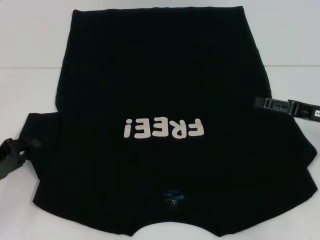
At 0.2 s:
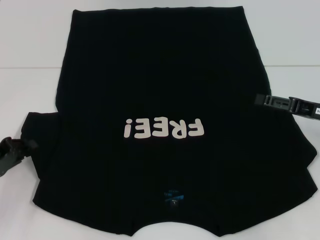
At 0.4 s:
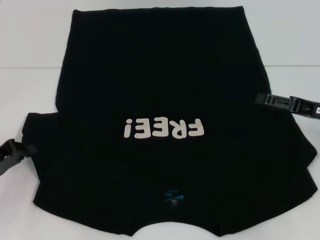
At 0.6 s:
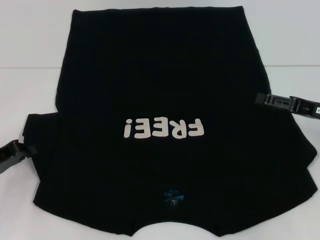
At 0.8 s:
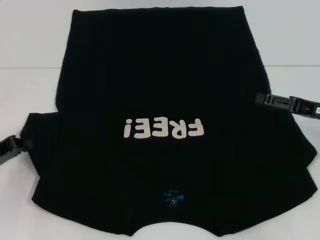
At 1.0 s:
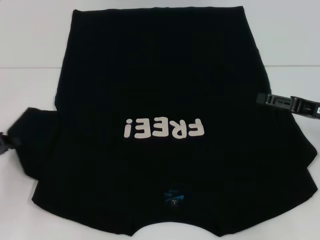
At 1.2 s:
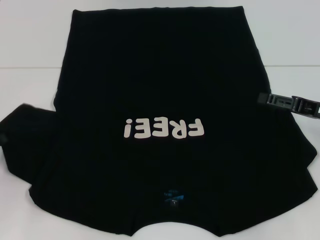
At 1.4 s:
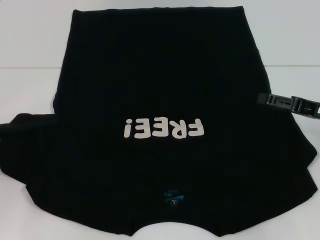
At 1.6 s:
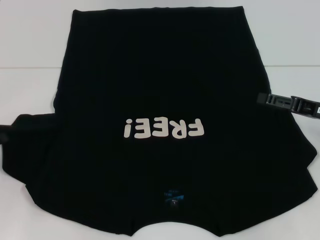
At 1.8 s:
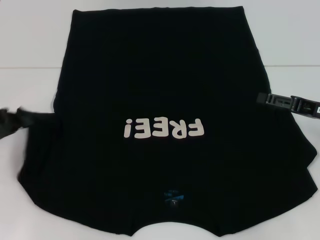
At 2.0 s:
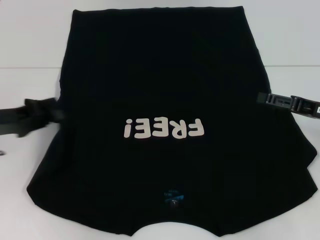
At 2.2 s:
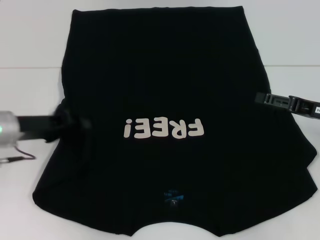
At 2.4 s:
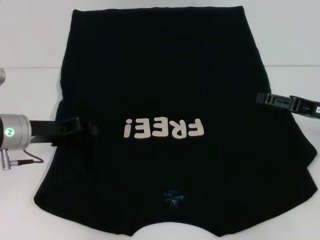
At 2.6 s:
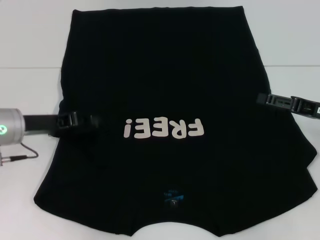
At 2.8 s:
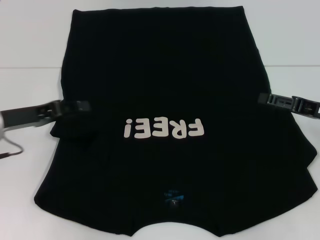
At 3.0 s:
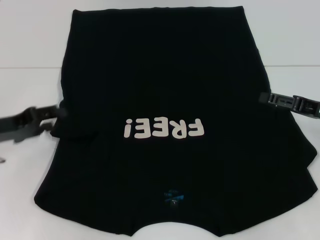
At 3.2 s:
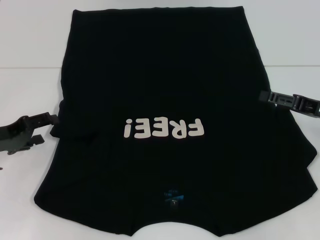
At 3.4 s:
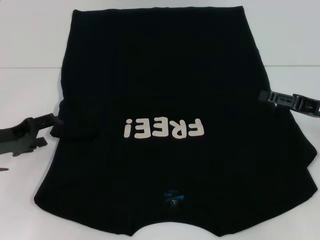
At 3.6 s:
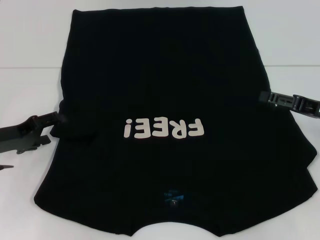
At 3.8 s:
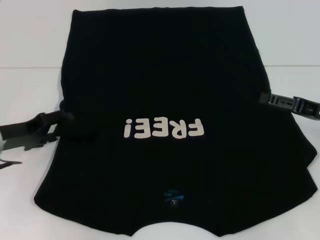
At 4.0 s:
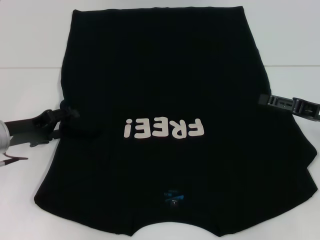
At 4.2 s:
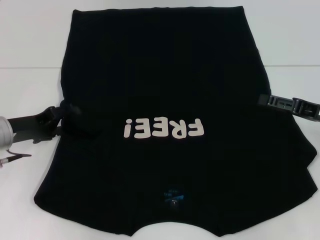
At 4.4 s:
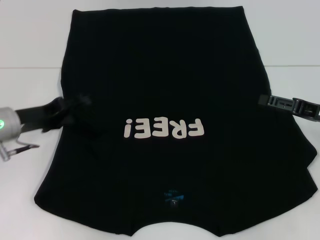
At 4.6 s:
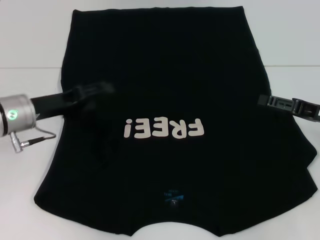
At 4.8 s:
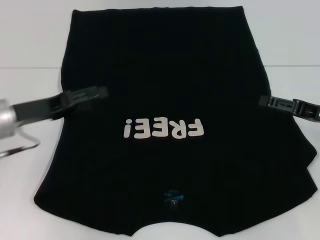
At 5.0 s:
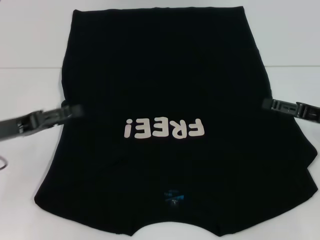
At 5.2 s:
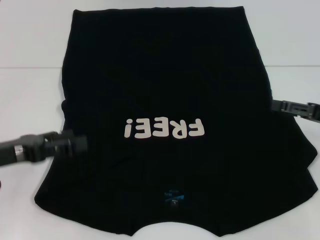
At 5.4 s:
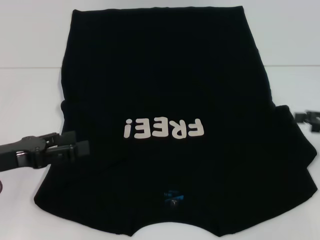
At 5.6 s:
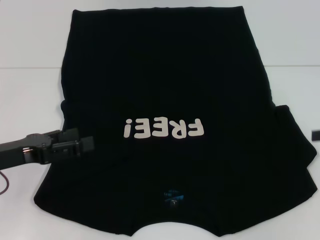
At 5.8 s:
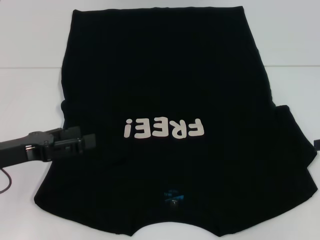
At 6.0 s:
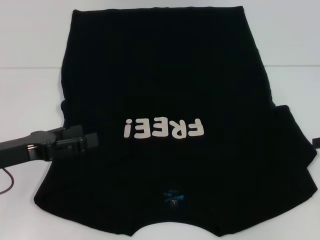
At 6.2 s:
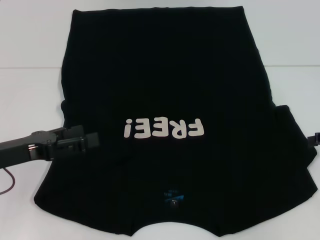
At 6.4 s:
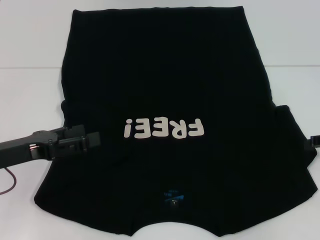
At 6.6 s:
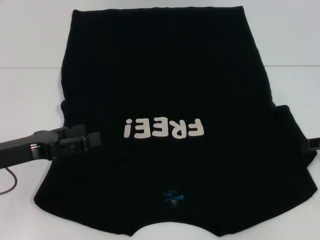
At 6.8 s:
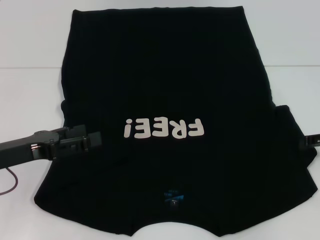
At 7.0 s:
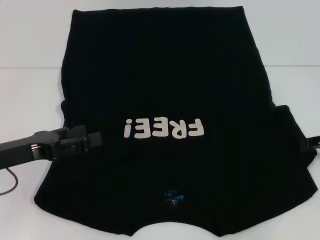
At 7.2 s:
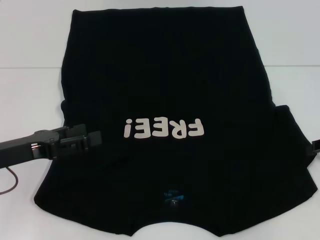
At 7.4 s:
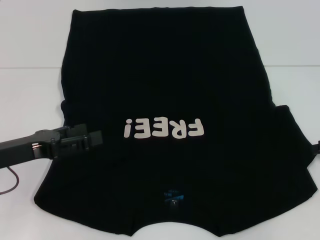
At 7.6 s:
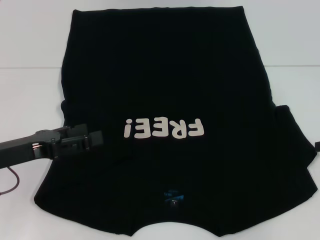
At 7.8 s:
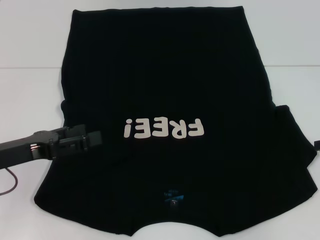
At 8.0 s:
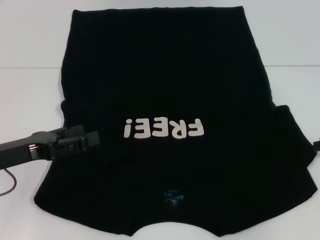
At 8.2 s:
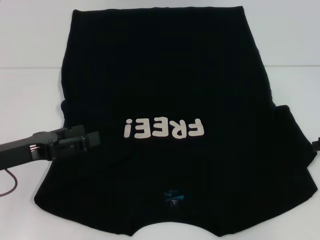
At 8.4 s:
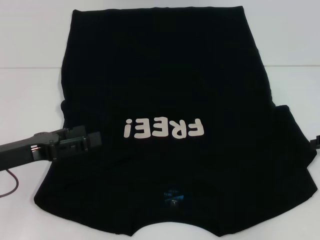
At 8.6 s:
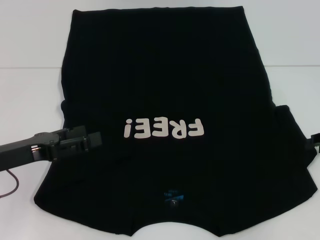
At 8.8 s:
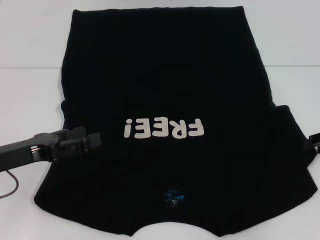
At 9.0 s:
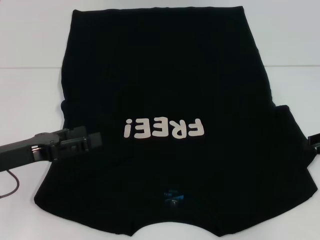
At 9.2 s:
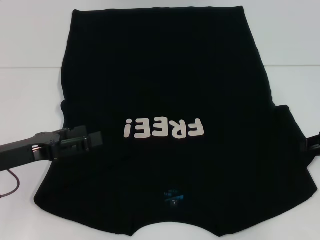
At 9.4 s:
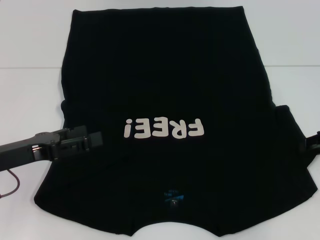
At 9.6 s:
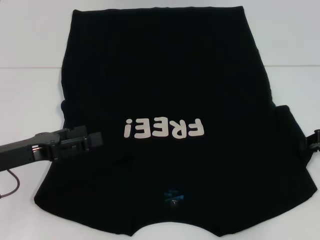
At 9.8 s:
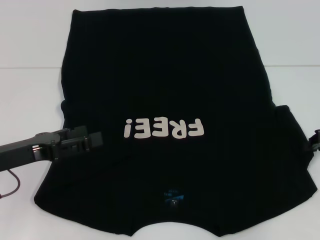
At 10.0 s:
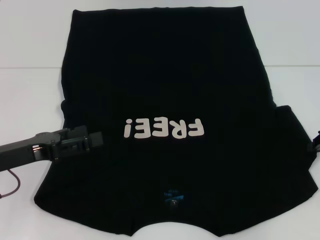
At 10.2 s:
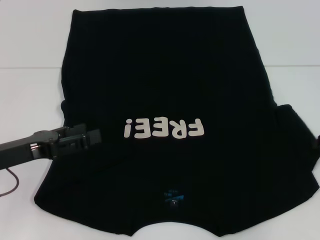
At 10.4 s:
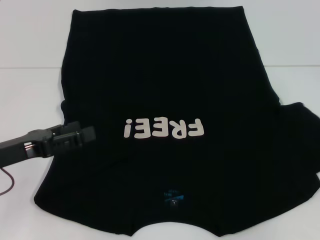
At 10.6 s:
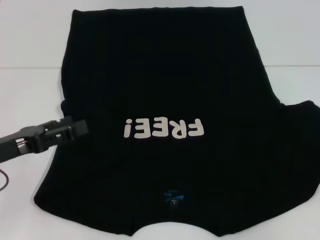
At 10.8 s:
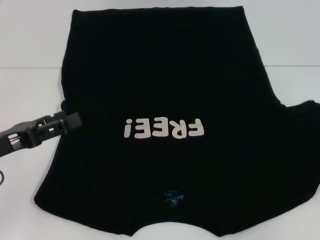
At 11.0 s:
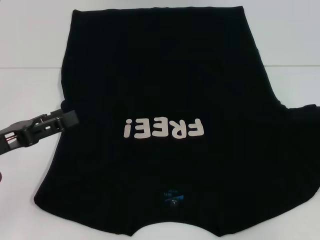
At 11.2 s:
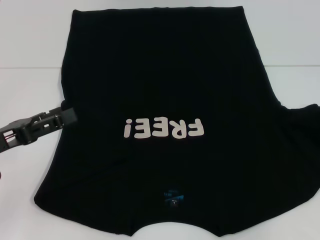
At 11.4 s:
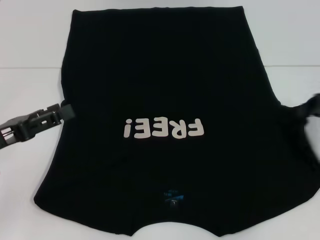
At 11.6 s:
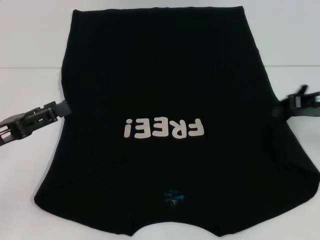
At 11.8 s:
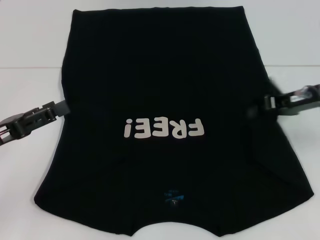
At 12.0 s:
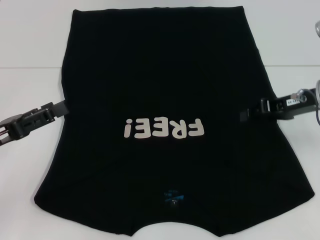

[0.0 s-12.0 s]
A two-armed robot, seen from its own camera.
Step, 0.0 to 2.2 s: Fold the bottom left sleeve with your left hand.
0.0 to 1.6 s: The left gripper moves some 5 cm, and closes up.
1.6 to 3.0 s: The left gripper is displaced to the right by some 5 cm, and opens up.
3.0 to 4.4 s: The left gripper shifts by approximately 5 cm, and opens up.
4.4 to 6.0 s: The right gripper moves to the right, approximately 5 cm, while the left gripper moves backward, about 10 cm.
7.6 to 9.0 s: The grippers make only small movements.
9.0 to 10.4 s: The right gripper closes up.
10.4 to 12.0 s: The right gripper goes about 10 cm to the left.

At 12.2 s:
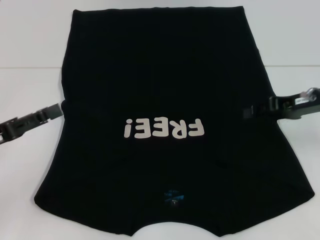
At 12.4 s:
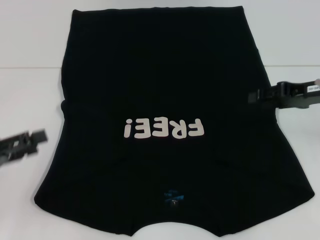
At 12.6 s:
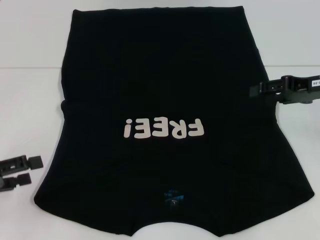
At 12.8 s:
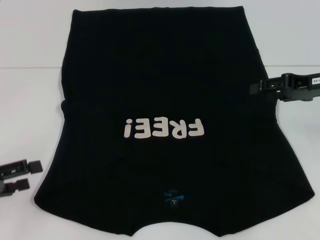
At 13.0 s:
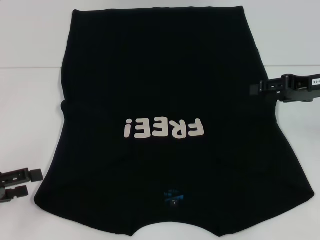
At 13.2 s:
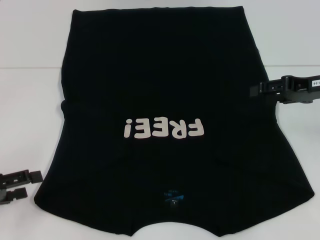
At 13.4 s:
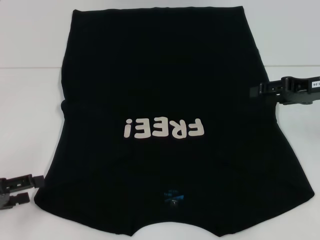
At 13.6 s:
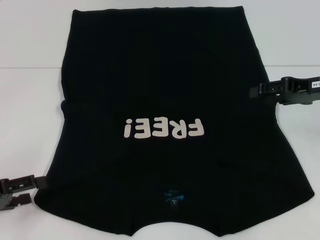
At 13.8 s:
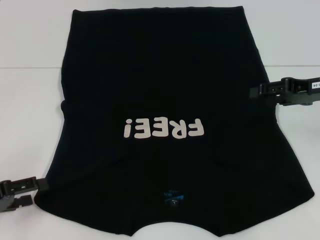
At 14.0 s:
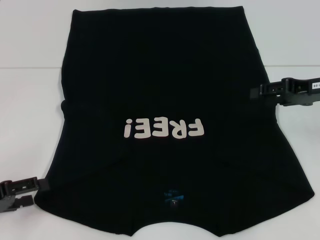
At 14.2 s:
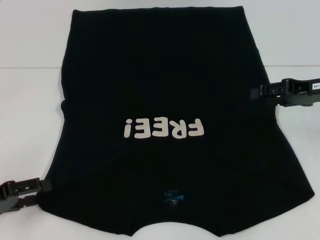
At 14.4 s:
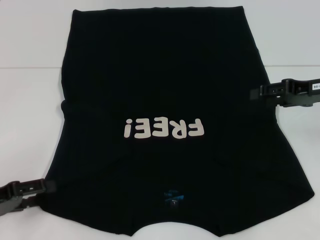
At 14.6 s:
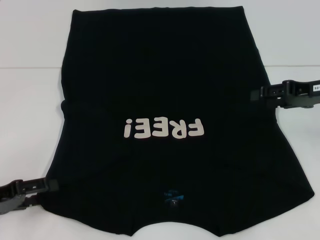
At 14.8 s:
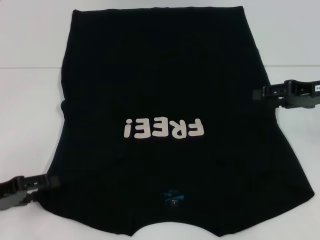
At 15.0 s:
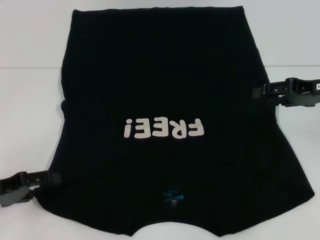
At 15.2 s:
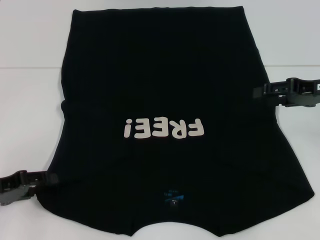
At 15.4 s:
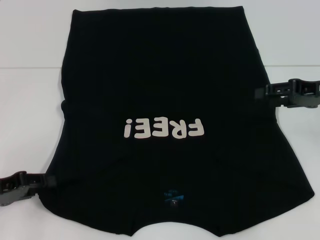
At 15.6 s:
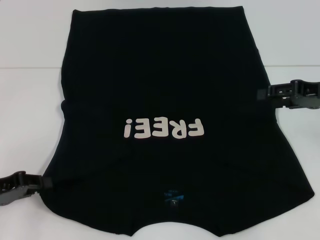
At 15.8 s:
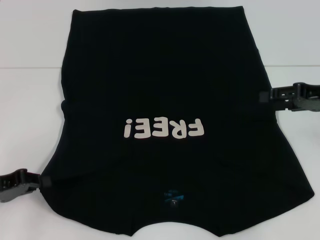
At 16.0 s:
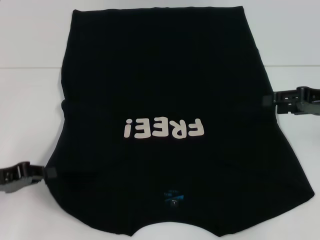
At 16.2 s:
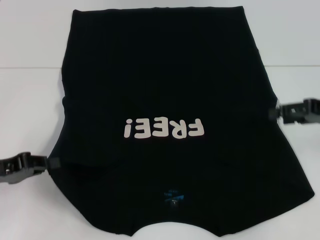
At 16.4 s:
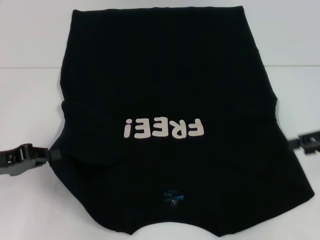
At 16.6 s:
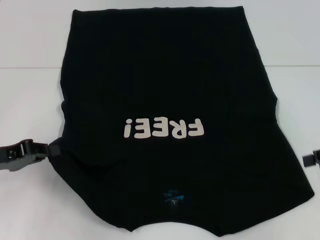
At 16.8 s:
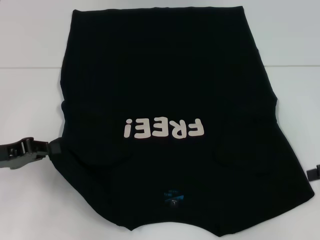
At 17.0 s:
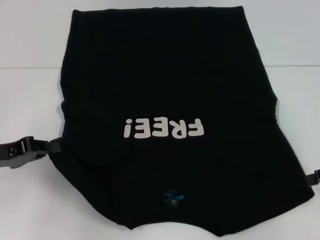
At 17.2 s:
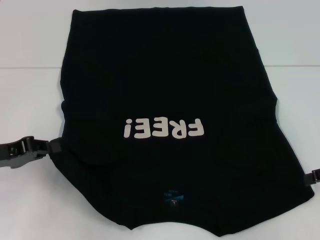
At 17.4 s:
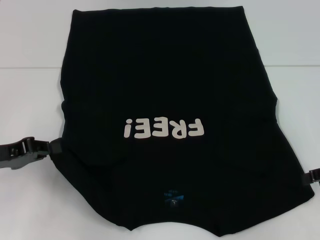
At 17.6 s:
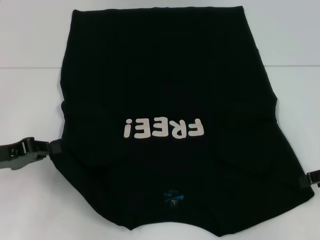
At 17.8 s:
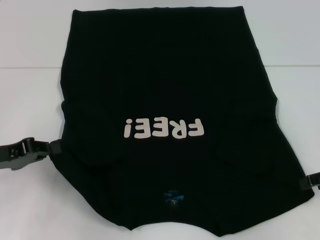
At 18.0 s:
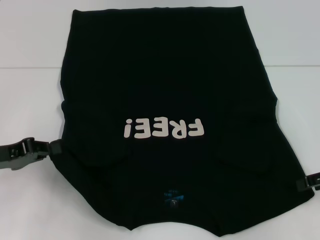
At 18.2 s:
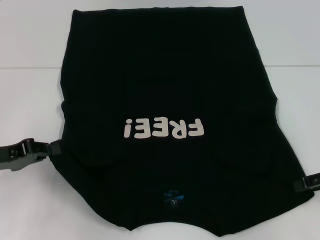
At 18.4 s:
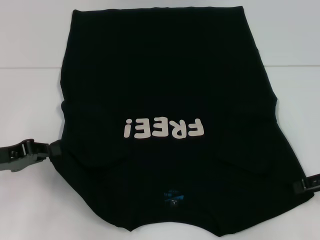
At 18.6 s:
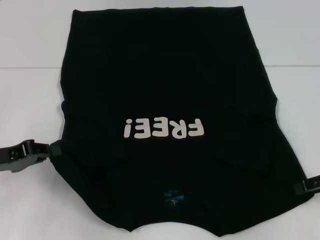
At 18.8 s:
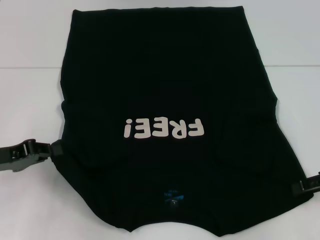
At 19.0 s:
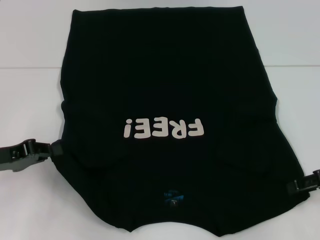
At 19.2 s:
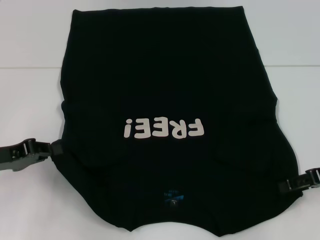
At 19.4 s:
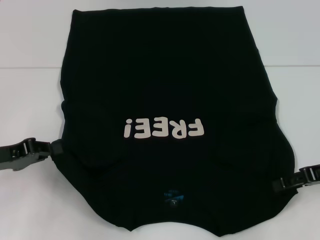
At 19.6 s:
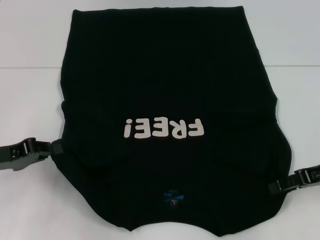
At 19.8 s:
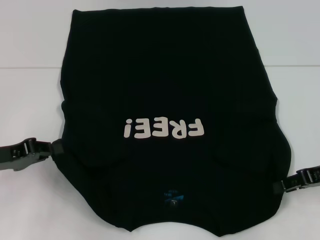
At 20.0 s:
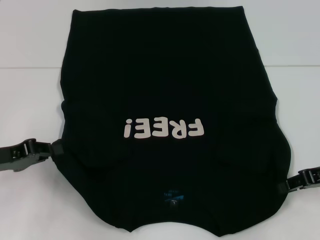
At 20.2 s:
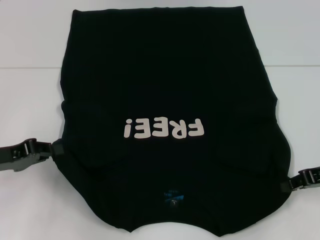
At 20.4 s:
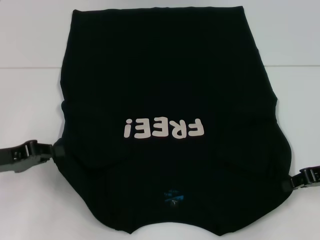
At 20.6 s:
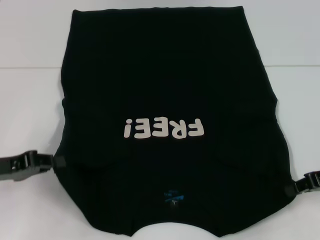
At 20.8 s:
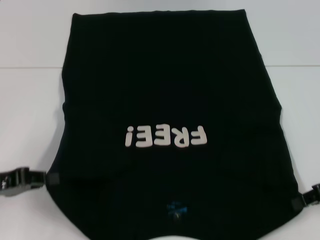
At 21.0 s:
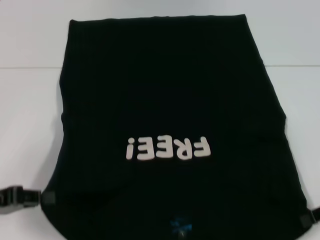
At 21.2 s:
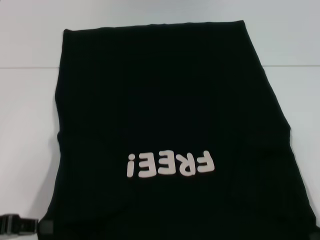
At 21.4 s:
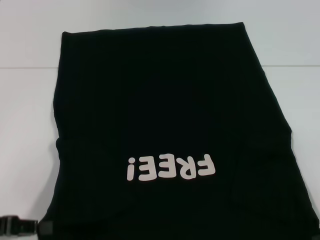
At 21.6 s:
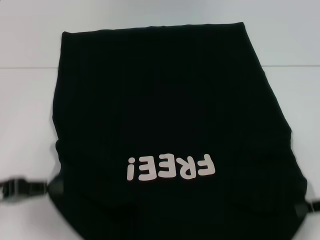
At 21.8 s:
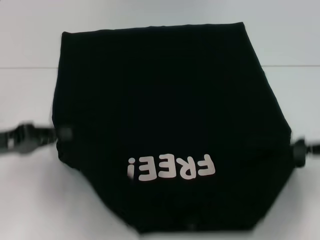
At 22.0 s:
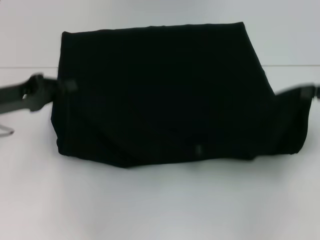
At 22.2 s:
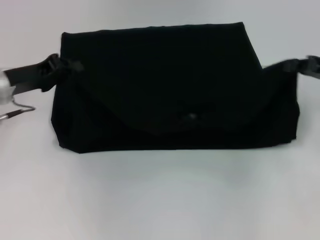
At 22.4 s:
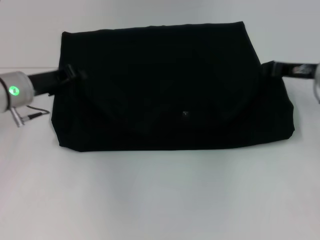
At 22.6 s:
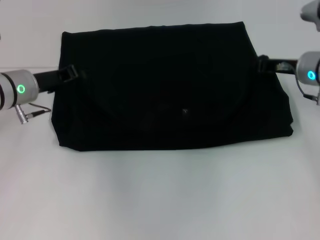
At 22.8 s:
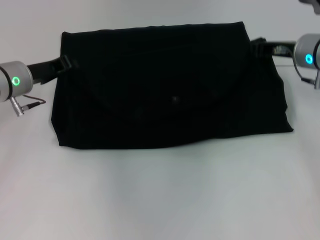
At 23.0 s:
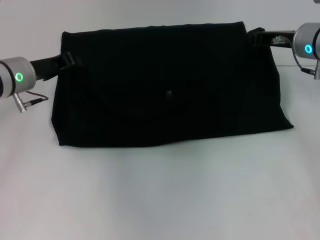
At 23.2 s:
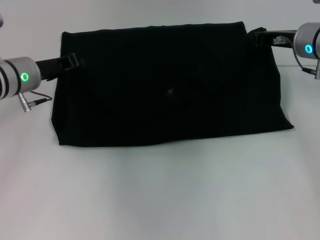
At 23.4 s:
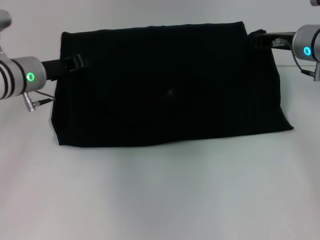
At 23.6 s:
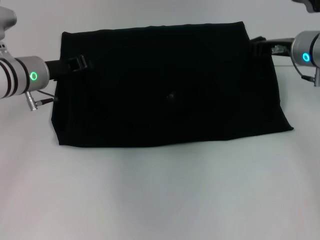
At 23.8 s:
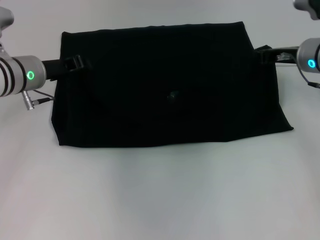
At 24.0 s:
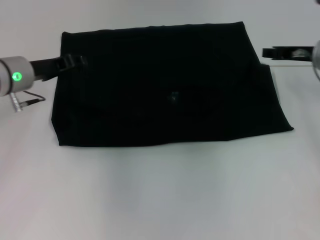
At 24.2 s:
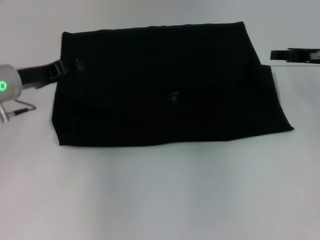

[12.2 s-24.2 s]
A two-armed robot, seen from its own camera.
Step, 12.4 to 16.0 s: Grab the bottom left corner with your left hand.
Step, 16.2 to 20.0 s: Grab the bottom right corner with your right hand.
12.2 to 13.8 s: The right gripper opens up; the left gripper changes place by approximately 5 cm.
13.8 to 15.2 s: The grippers stay close to where they were, moving slightly.
15.2 to 16.6 s: The right gripper goes approximately 10 cm to the right and backward. The left gripper closes its fingers.
16.6 to 18.2 s: The grippers move only a little.
18.2 to 19.8 s: There are only small adjustments of the grippers.
19.8 to 21.2 s: The two grippers go about 5 cm backward. The right gripper closes.
21.2 to 22.6 s: The left gripper moves forward and to the right, some 20 cm; the right gripper travels forward and to the left by roughly 20 cm.
22.6 to 24.2 s: The left gripper opens its fingers. Meanwhile the right gripper changes place by roughly 5 cm, and opens its fingers.
